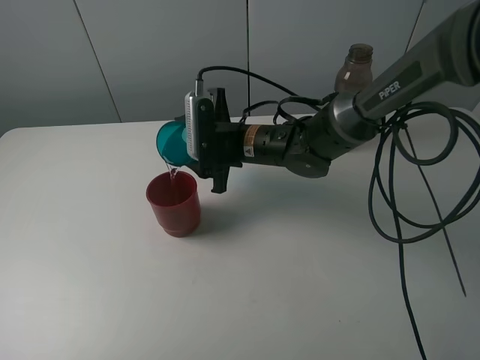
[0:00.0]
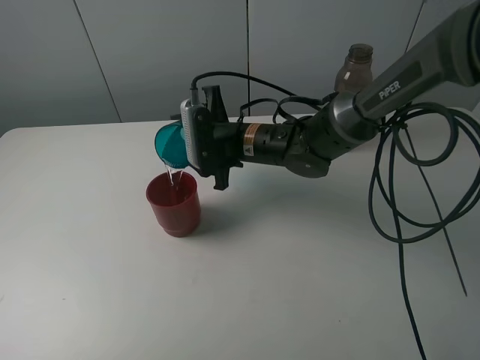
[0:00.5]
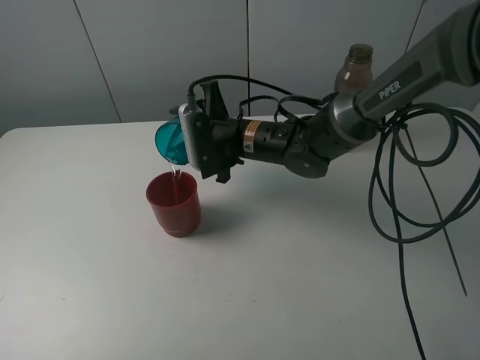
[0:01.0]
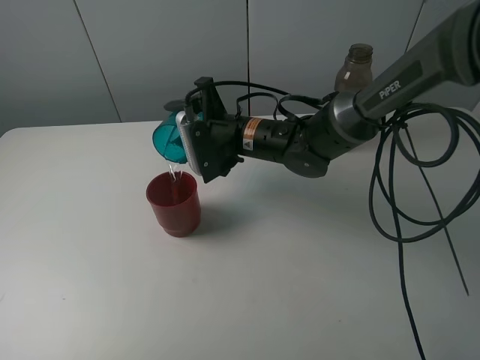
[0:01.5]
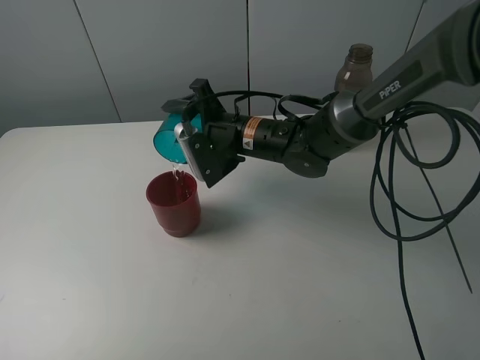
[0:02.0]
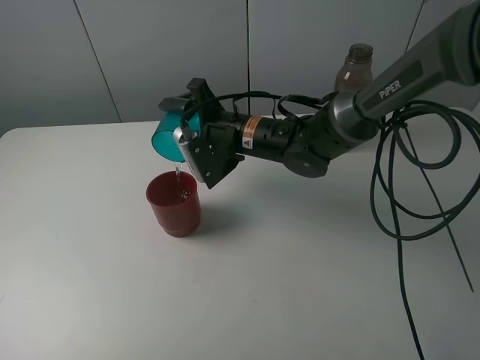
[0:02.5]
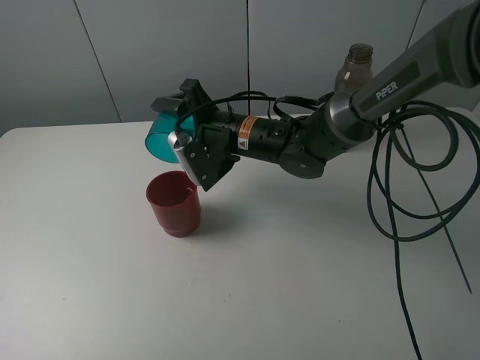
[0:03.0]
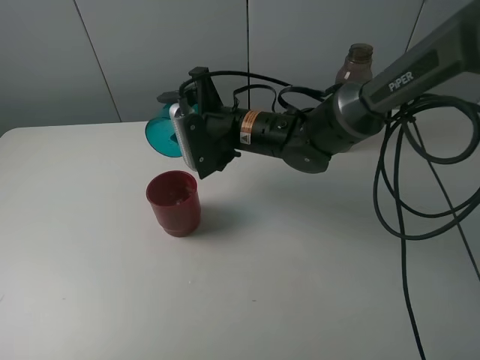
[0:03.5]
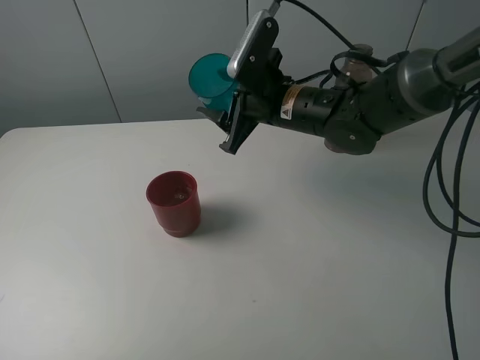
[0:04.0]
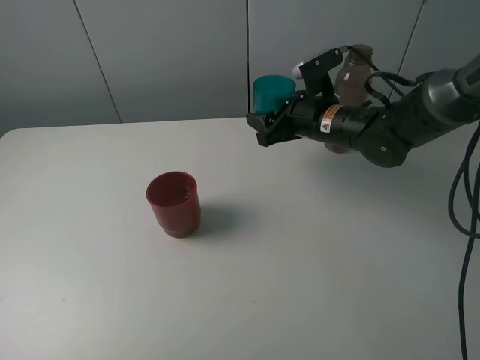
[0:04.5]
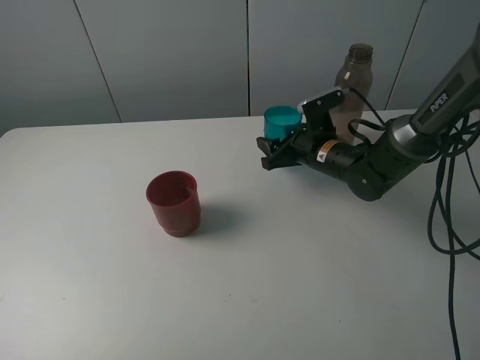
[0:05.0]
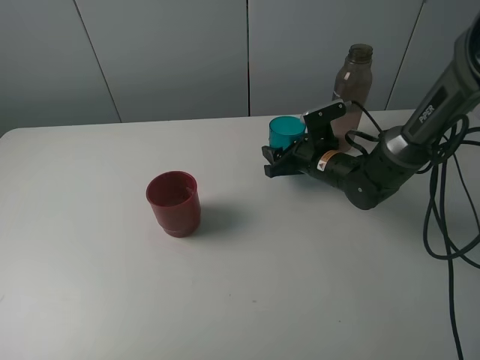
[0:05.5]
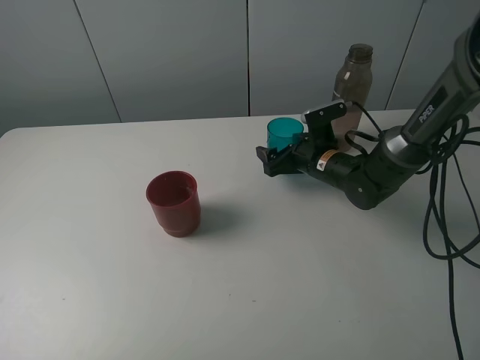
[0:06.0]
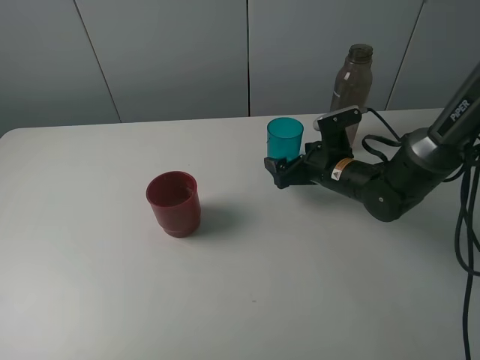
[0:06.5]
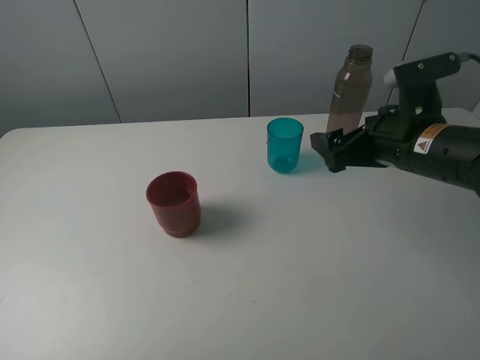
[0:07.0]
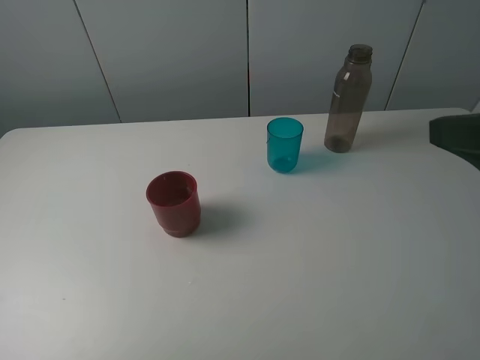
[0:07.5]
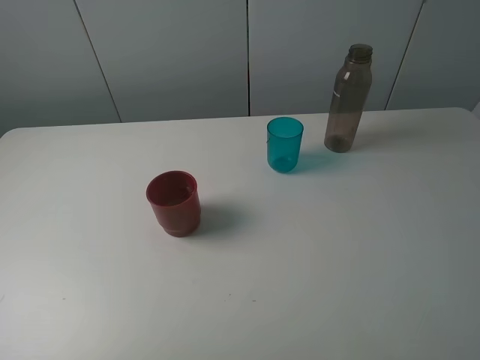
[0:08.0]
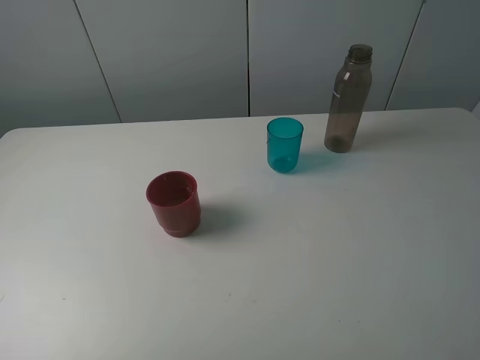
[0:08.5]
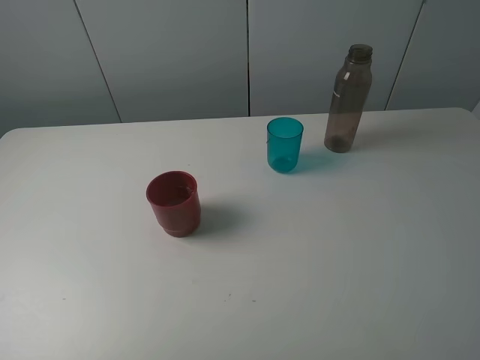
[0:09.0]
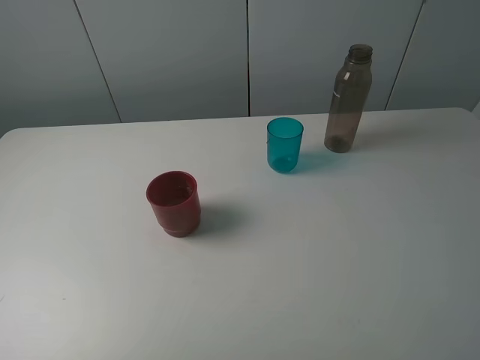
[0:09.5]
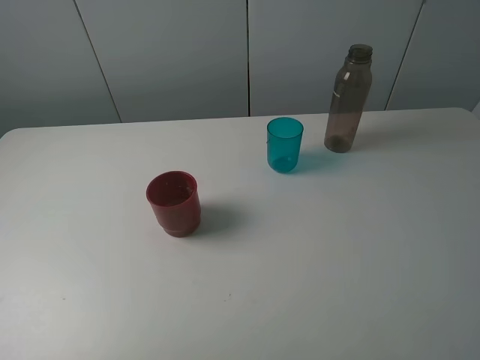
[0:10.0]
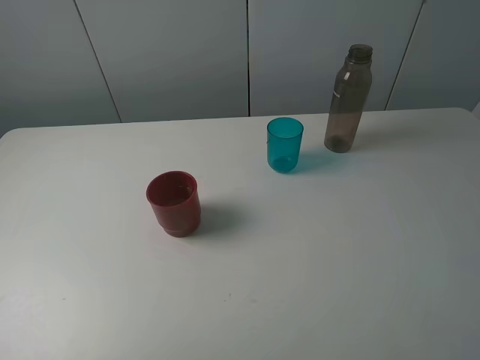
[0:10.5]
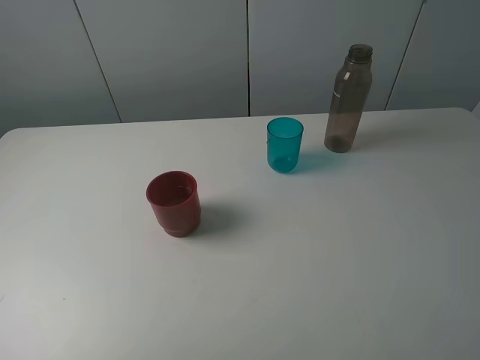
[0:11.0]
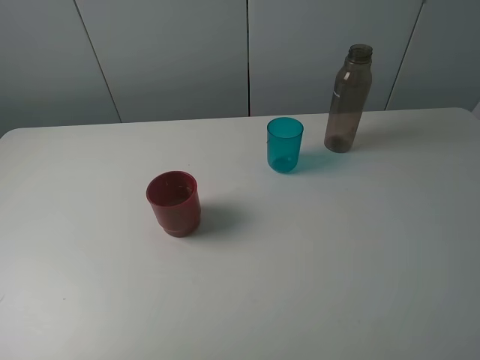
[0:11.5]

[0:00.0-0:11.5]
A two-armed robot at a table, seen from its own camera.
Task of the whole recording: pick up the bottle and pour water into the cup, then pick up the cup containing water and pour it into another cup.
Step, 0:00.0 to 0:03.0: Pour water from blue cup to red cup with the right gripper.
Step, 0:03.5 to 0:06.0: Place the blue cup with the right gripper.
0:02.0 to 0:04.0: The right gripper heads to the right, covering roughly 5 cm.
0:04.0 to 0:06.0: The right gripper heads downward and to the right, covering about 15 cm, and opens its fingers.
0:06.0 to 0:07.5: The right gripper goes some 40 cm backward, upward and to the right.
0:07.5 to 0:09.5: The right gripper moves backward, about 10 cm.
